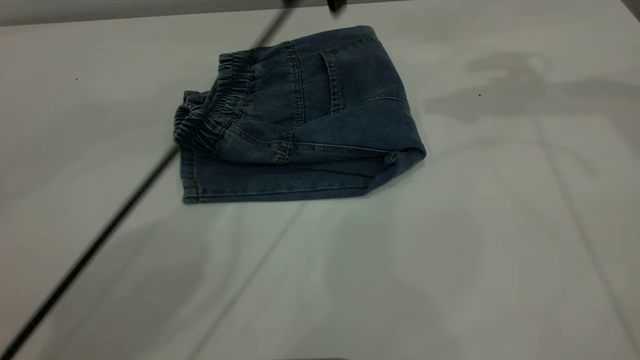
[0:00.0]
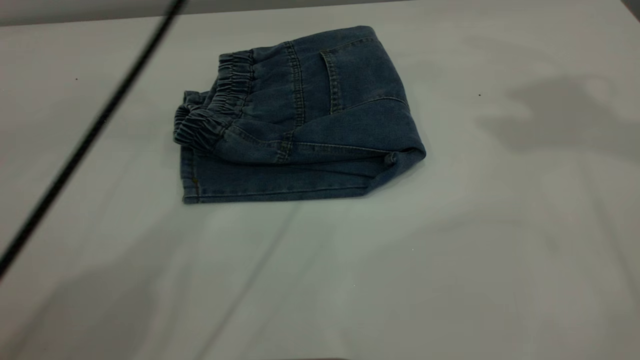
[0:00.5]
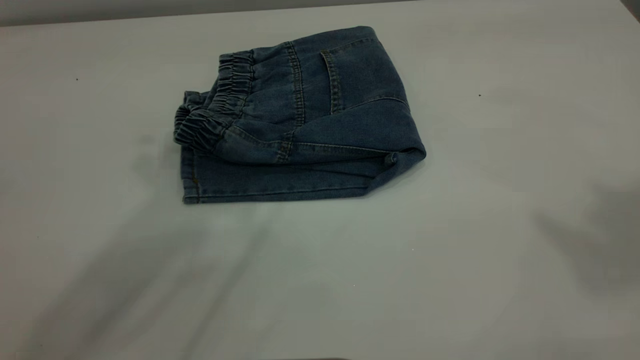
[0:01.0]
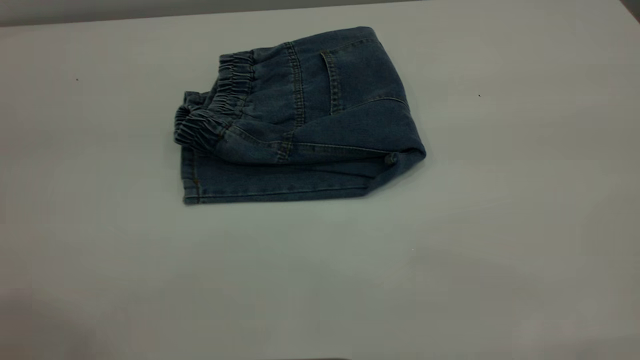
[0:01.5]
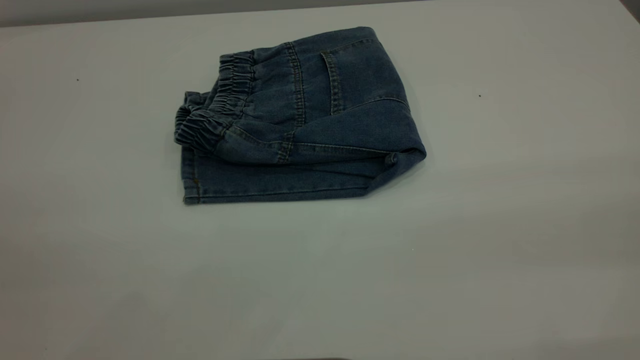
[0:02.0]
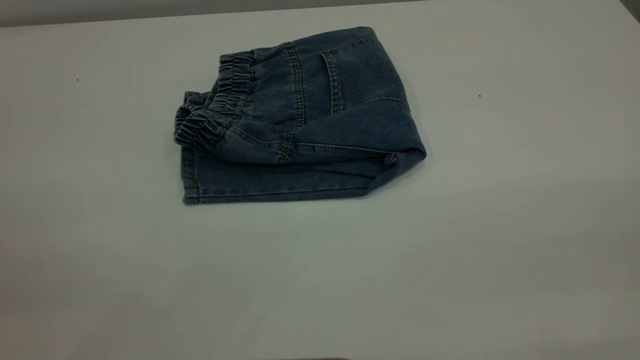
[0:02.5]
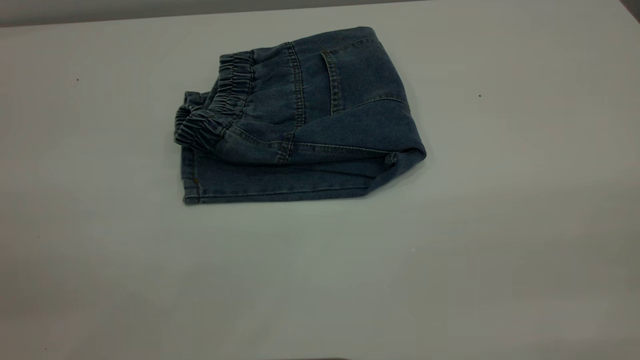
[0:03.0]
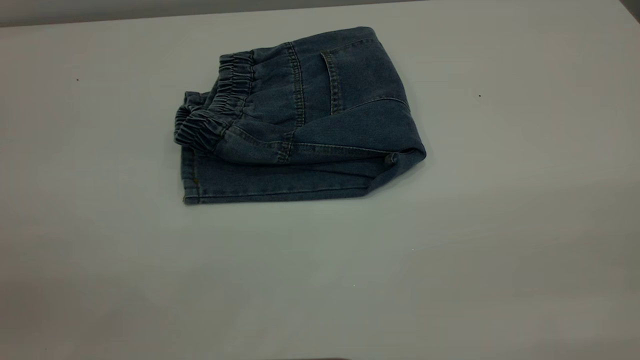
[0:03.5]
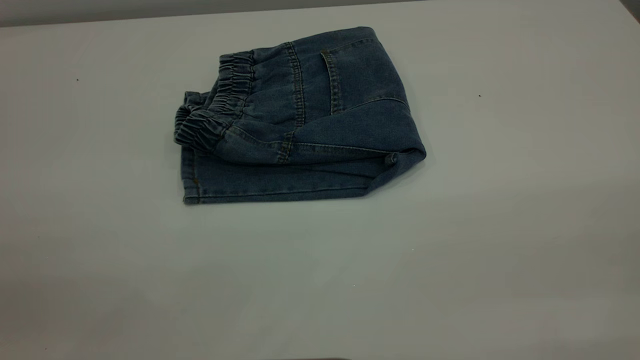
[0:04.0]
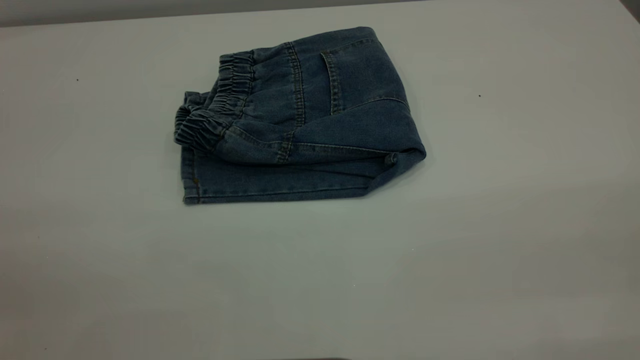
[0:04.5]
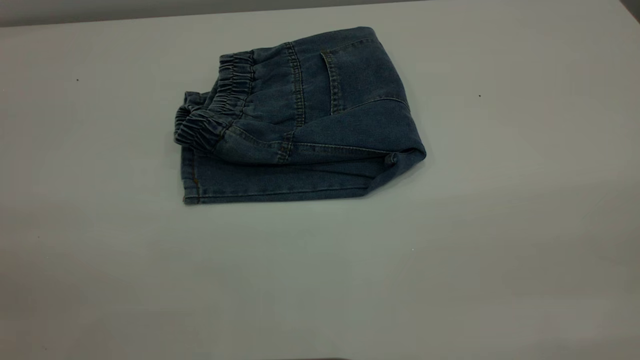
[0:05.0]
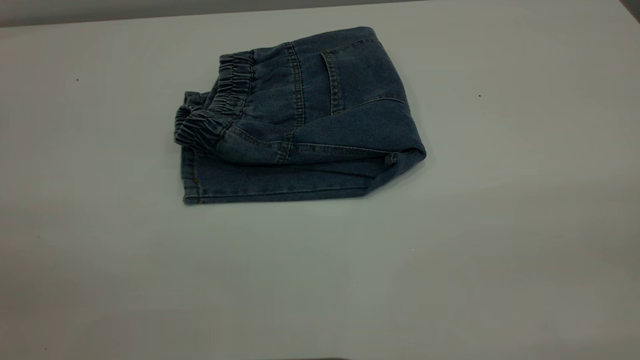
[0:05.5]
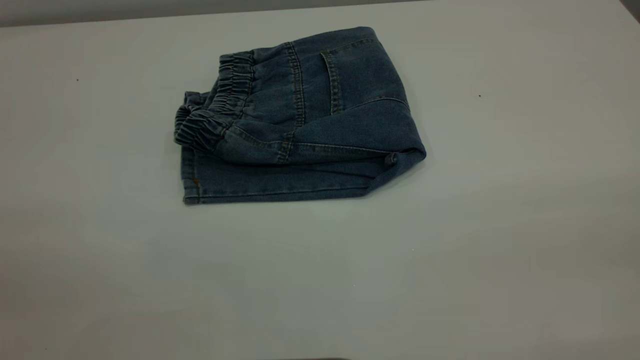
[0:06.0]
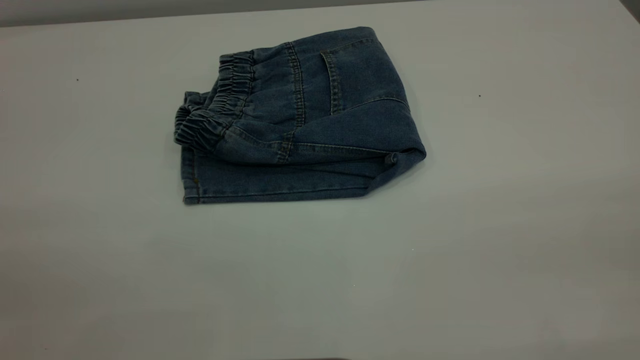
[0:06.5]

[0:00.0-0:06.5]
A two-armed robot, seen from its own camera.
0:00.0 to 0:02.0: The right gripper shifts some 40 cm backward; the left gripper shifts roughly 60 cm backward and to the left.
